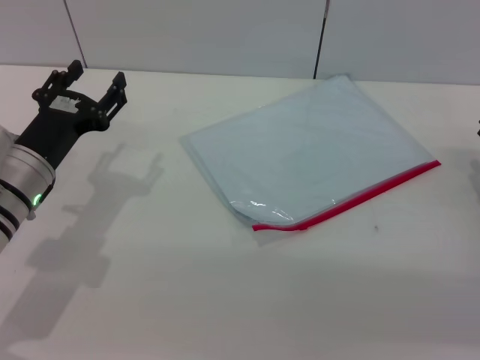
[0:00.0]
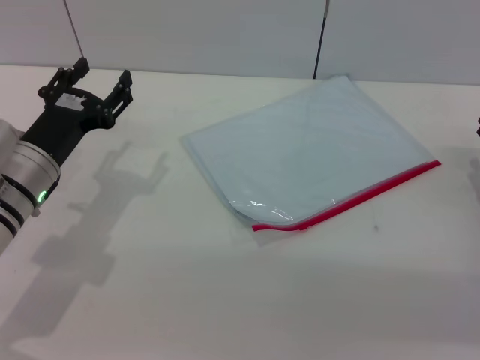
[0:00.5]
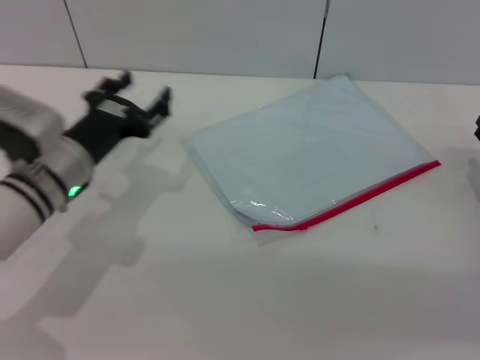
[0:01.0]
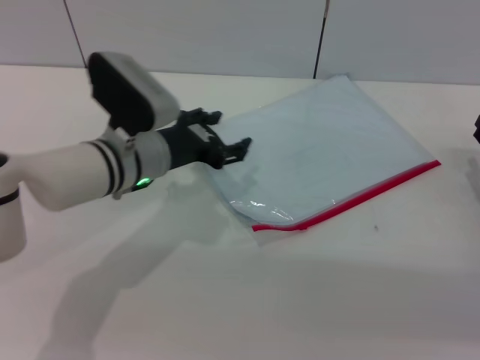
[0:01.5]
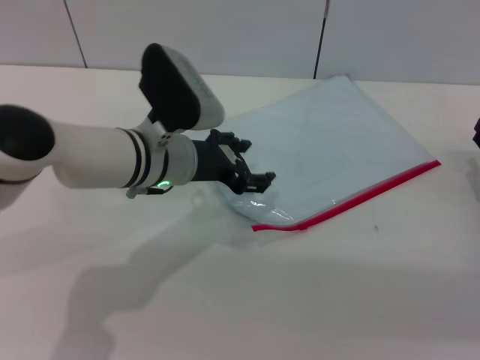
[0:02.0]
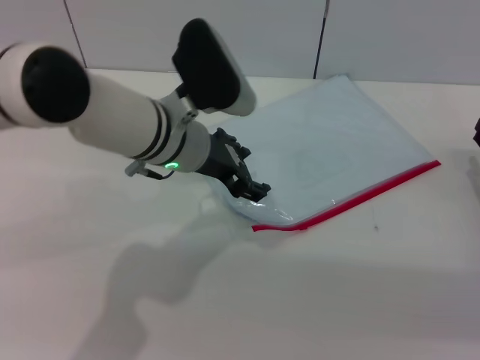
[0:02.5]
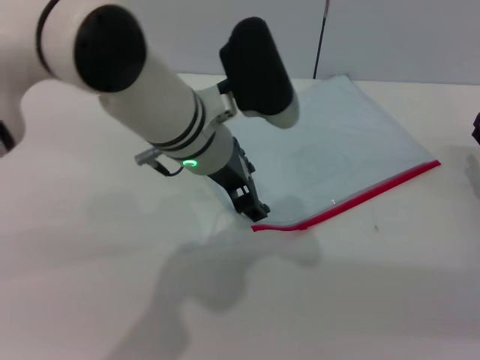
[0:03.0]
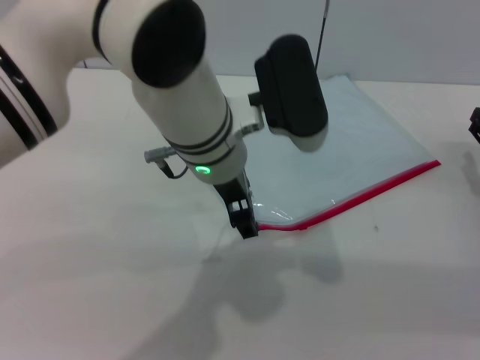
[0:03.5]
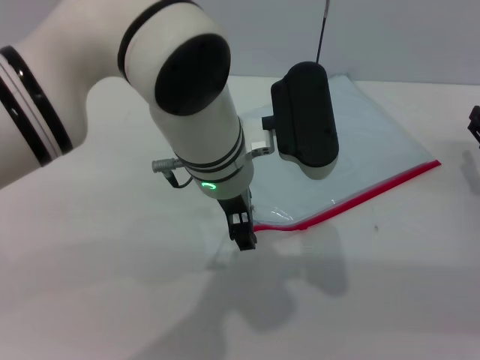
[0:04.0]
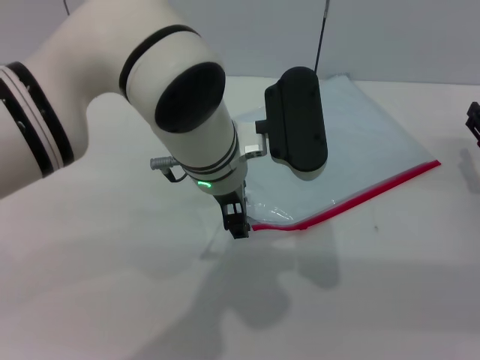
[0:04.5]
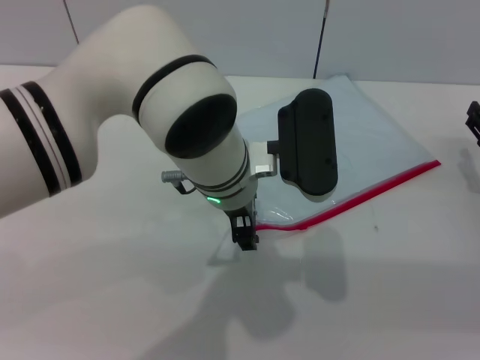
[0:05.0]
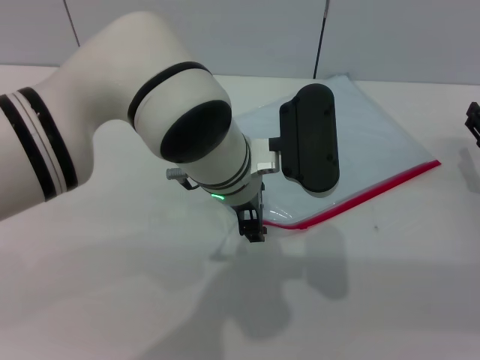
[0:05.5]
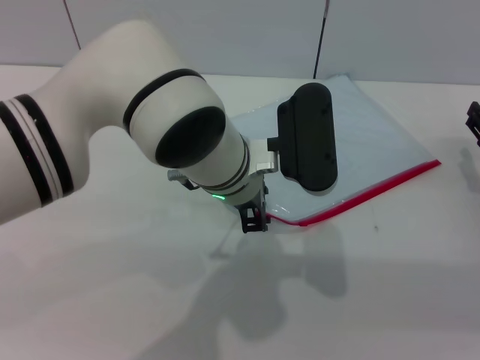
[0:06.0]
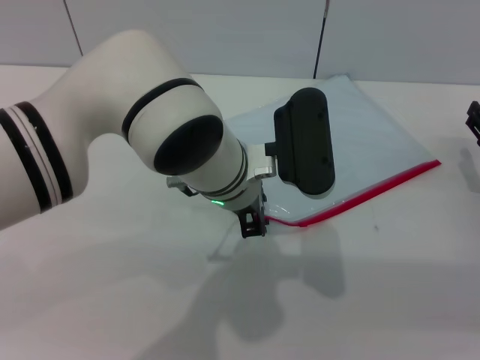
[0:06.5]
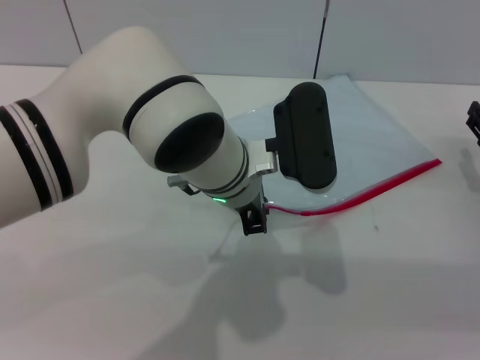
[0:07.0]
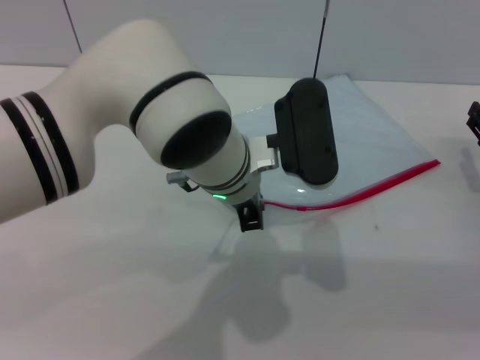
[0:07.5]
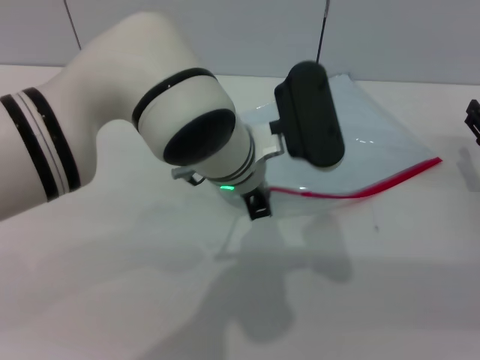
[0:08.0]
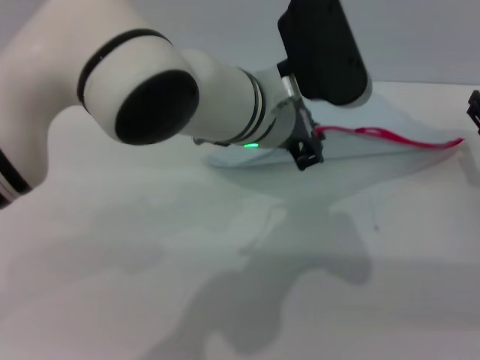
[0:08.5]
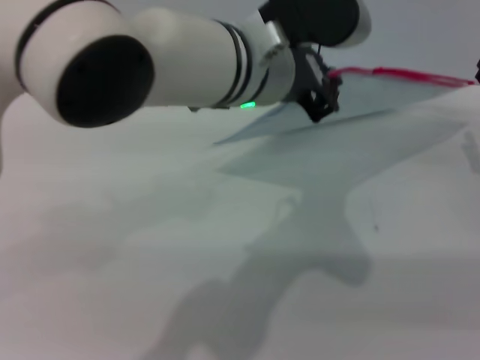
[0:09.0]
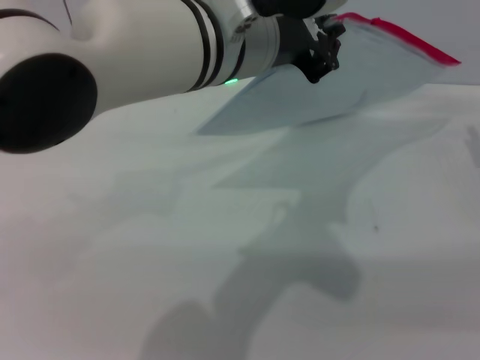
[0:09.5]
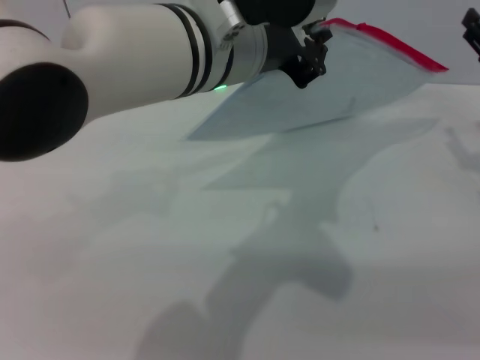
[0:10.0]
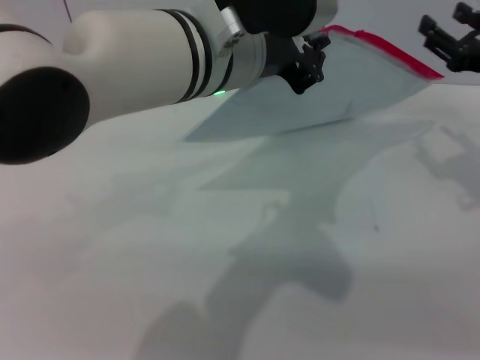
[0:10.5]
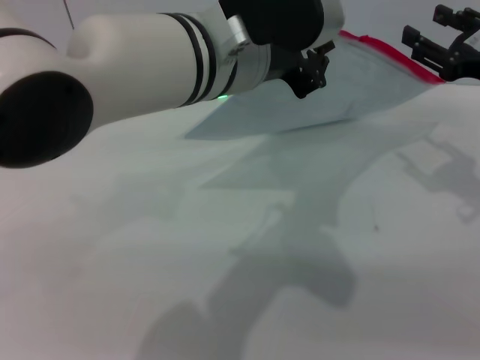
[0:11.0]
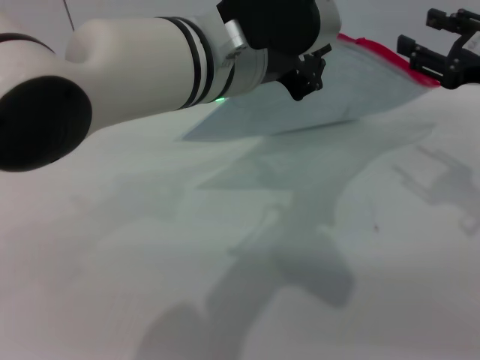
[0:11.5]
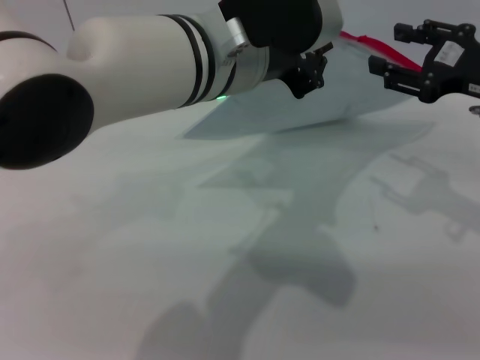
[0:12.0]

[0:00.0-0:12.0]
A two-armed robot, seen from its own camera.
Step, 0:00.0 to 0:10.0: Pick up the transparent plastic bag with the left gripper.
0:00.0 to 0:02.0: The left gripper shifts approximately 15 cm to the right and forward.
0:02.0 to 0:04.0: The left gripper heads to the right and upward, covering some 10 cm.
0:06.0 to 0:08.0: The left gripper closes its fingers.
0:08.0 to 0:10.0: The right gripper is displaced upward by roughly 5 cm; the left gripper heads upward, covering approximately 10 cm.
0:10.0 to 0:12.0: The right gripper is displaced upward by about 5 cm.

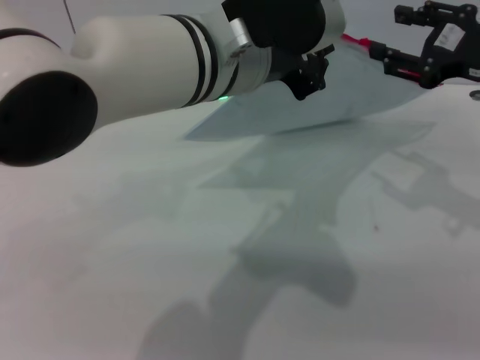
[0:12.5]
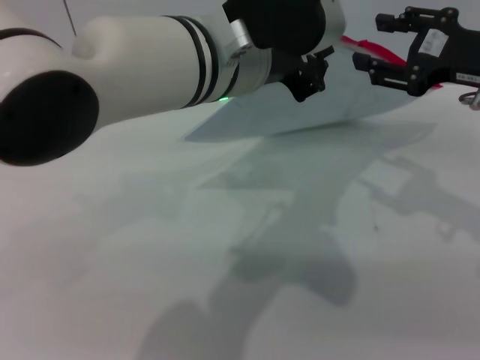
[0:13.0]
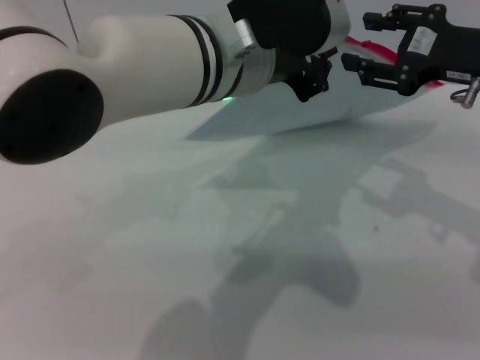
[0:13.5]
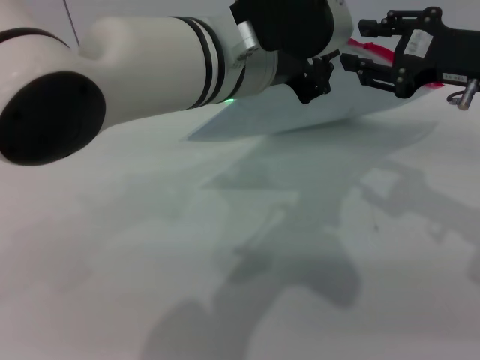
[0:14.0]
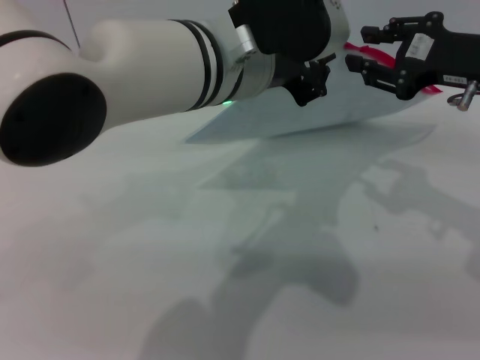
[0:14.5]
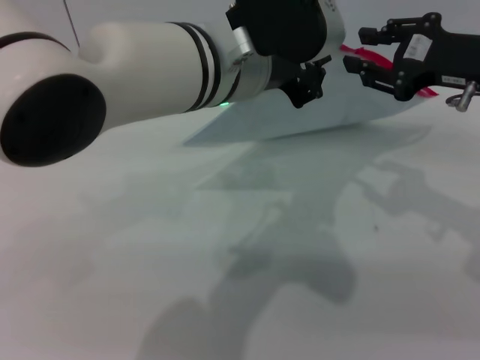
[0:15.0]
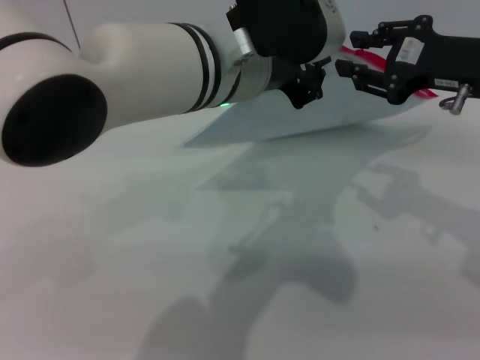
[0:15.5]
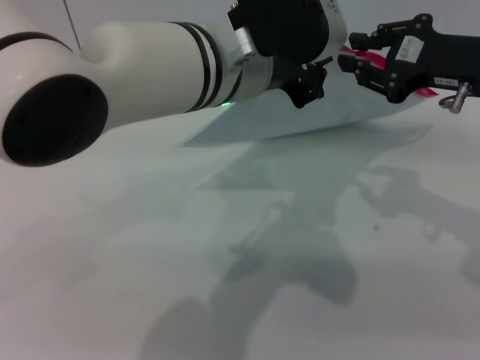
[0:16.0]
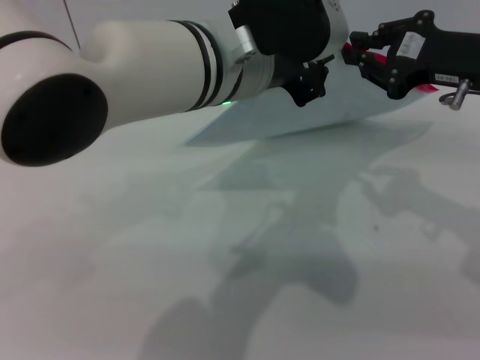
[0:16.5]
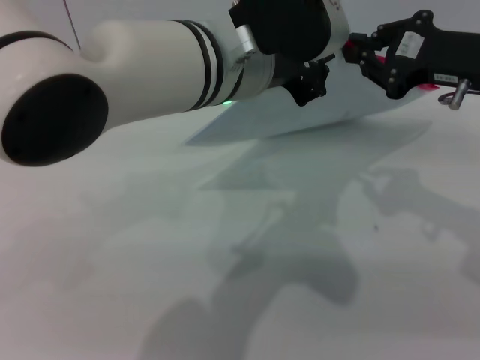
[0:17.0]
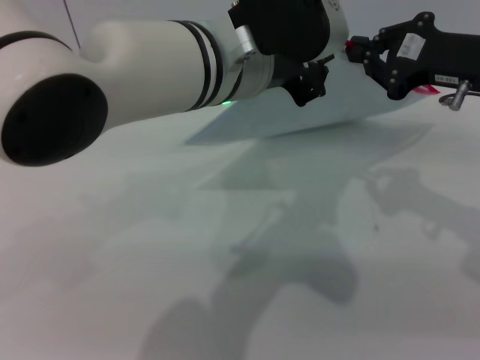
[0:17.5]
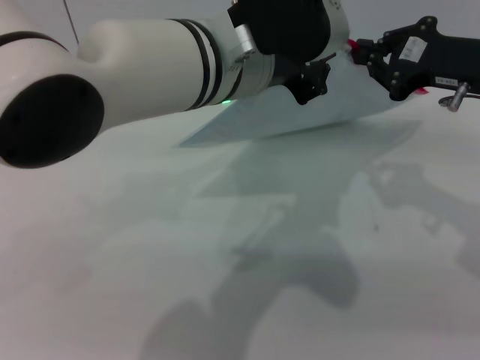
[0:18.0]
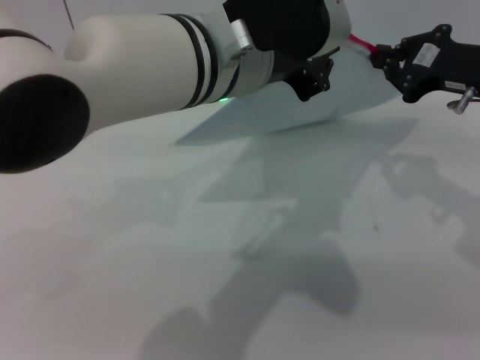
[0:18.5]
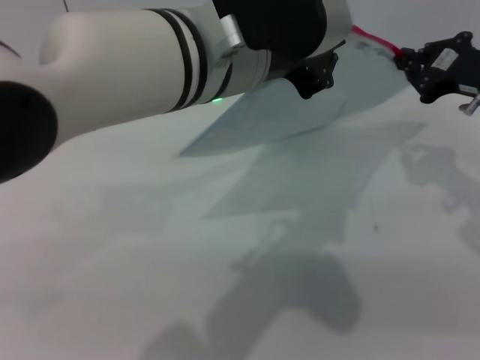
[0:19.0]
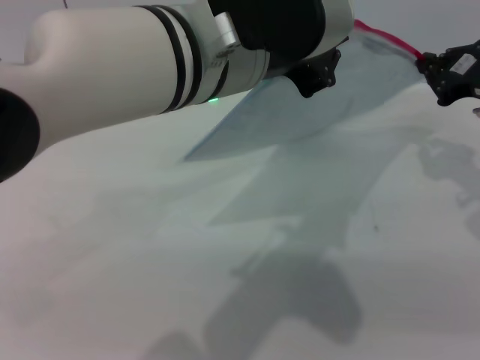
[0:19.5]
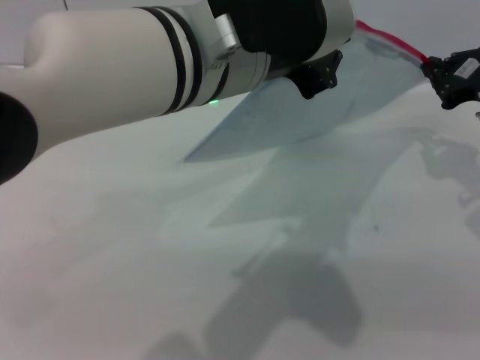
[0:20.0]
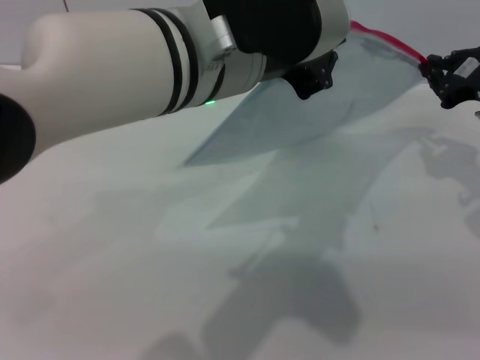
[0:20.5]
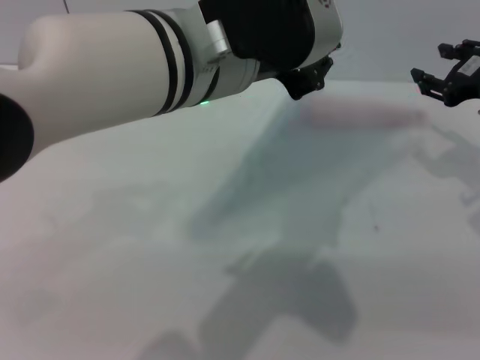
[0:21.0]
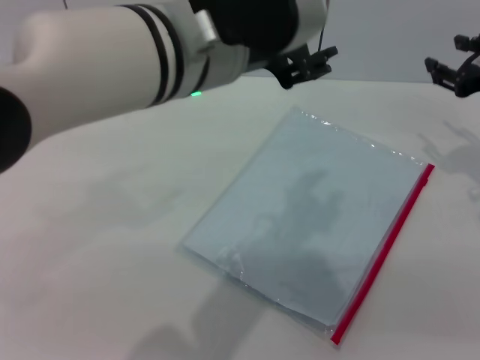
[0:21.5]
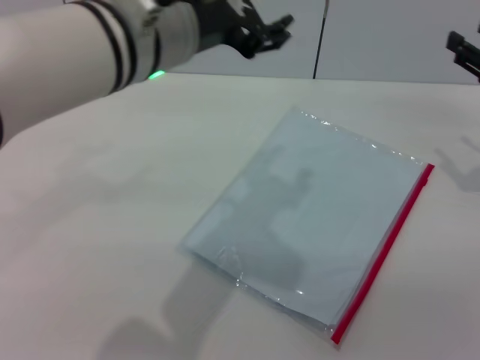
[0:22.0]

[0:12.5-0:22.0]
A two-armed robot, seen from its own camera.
Step, 0:12.5 to 0:20.5: Pulling up the zipper on the transparent plastic bag with the right gripper to close it.
0:12.5 to 0:14.5: The grippers stay close to where they were, moving slightly.
0:14.5 to 0:16.5: The right gripper closes up.
0:16.5 to 0:18.0: The two grippers keep their place.
0:18.0 to 0:20.0: The right gripper moves roughly 5 cm.
0:20.0 to 0:22.0: The left gripper changes place by approximately 5 cm, and opens its fingers. The right gripper changes place by approximately 5 cm, and opens up.
